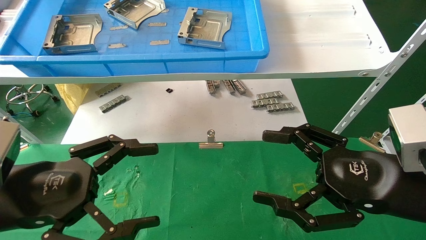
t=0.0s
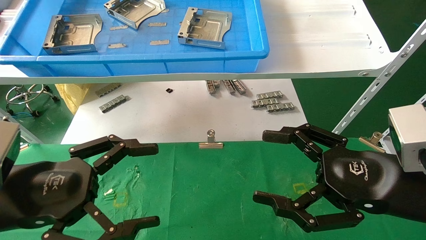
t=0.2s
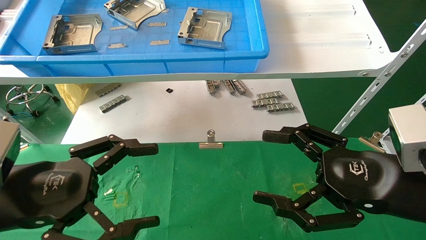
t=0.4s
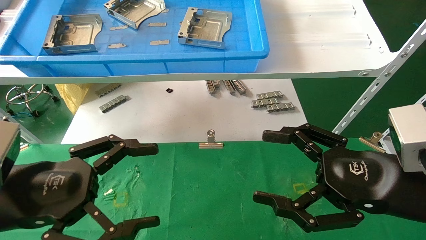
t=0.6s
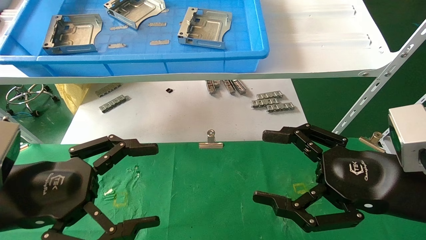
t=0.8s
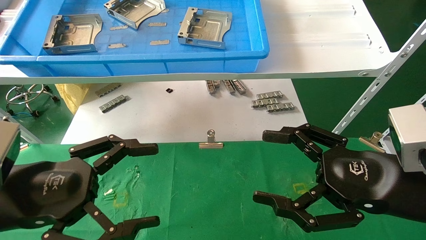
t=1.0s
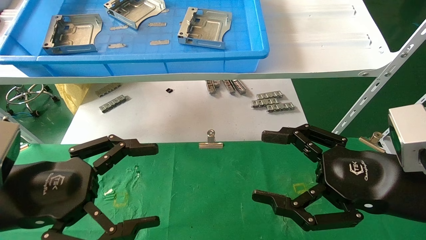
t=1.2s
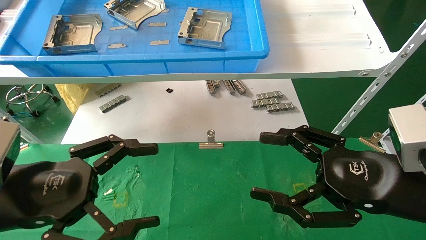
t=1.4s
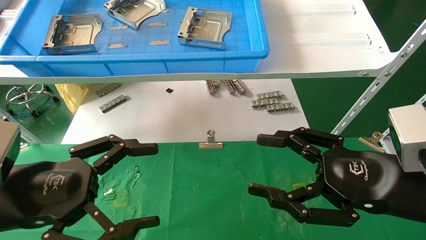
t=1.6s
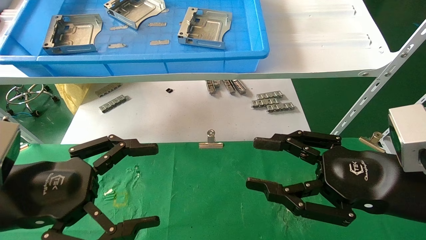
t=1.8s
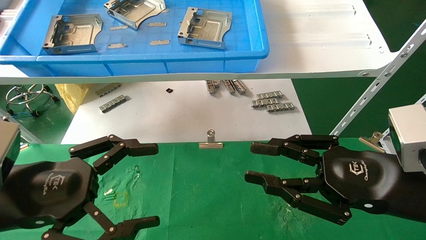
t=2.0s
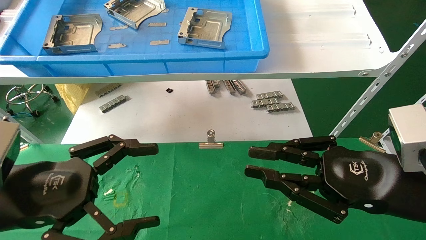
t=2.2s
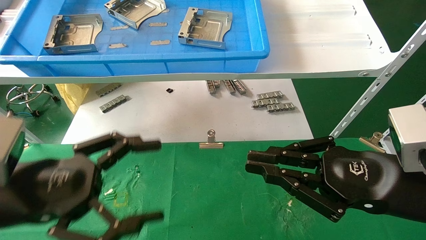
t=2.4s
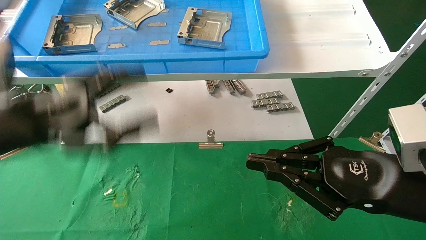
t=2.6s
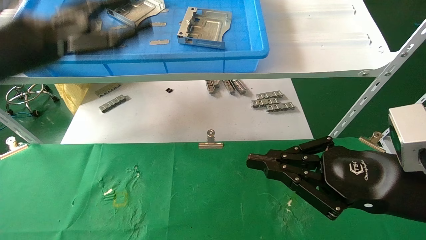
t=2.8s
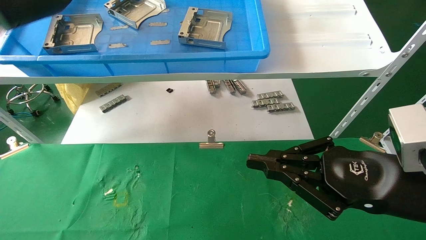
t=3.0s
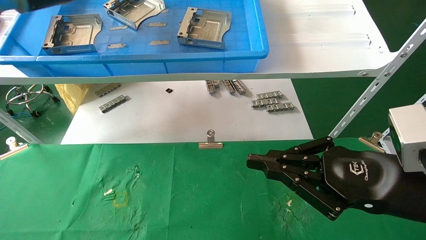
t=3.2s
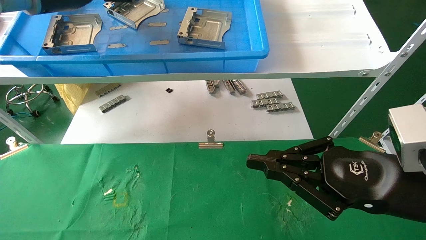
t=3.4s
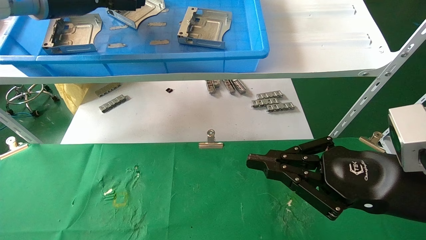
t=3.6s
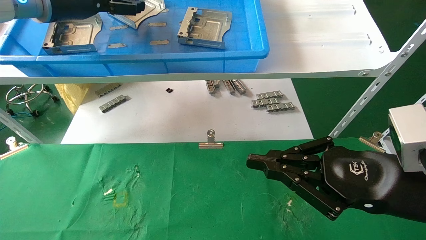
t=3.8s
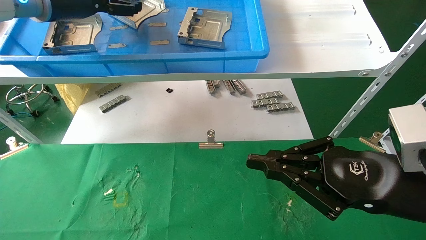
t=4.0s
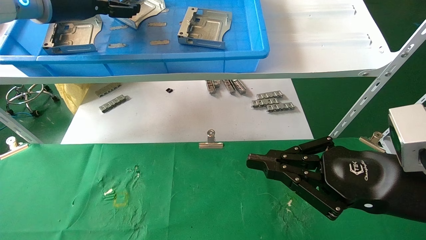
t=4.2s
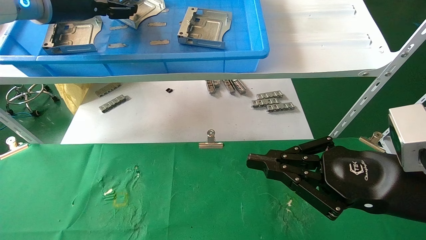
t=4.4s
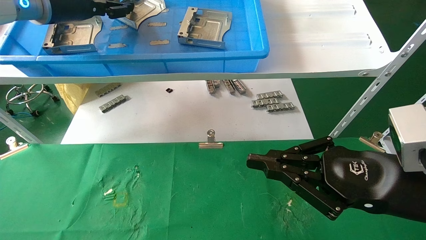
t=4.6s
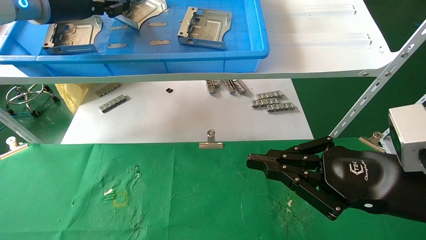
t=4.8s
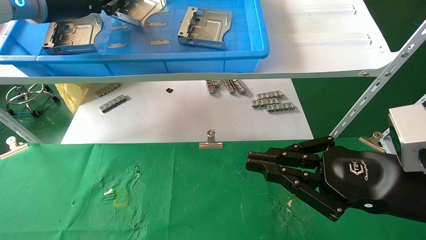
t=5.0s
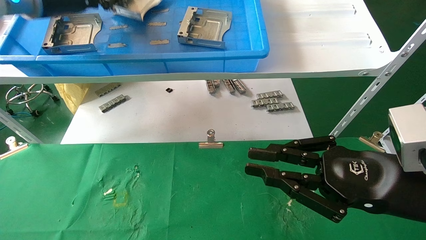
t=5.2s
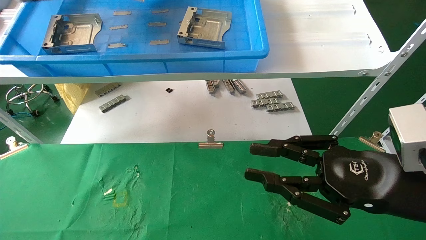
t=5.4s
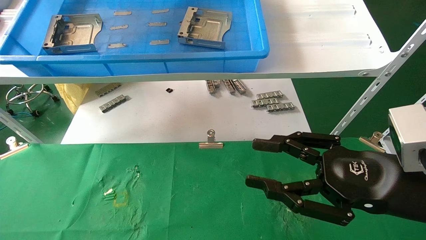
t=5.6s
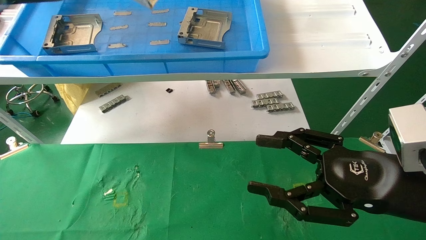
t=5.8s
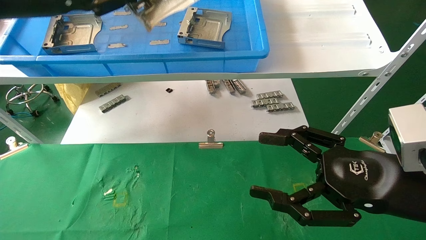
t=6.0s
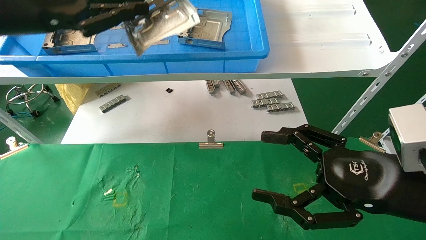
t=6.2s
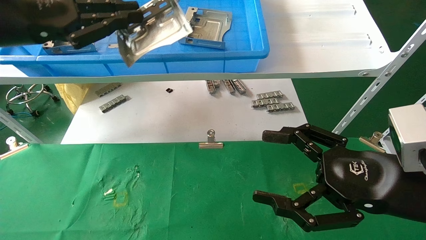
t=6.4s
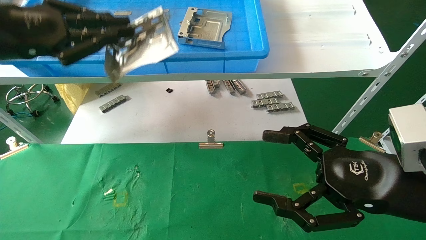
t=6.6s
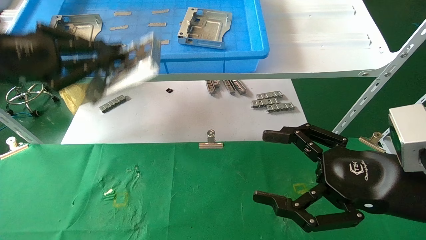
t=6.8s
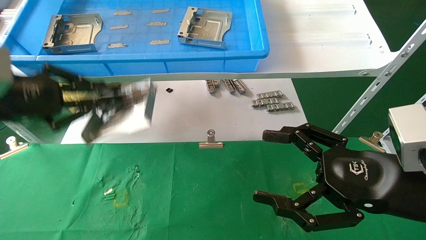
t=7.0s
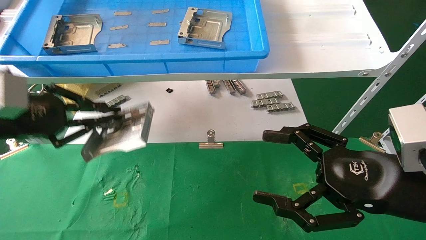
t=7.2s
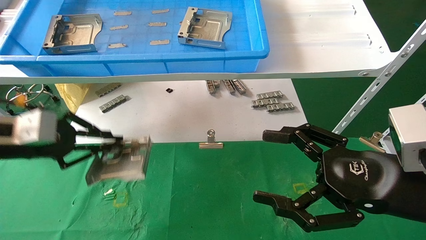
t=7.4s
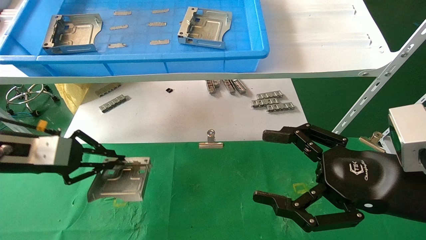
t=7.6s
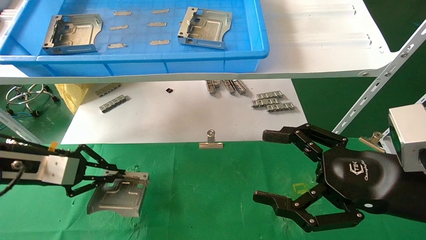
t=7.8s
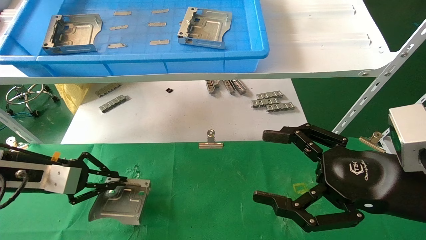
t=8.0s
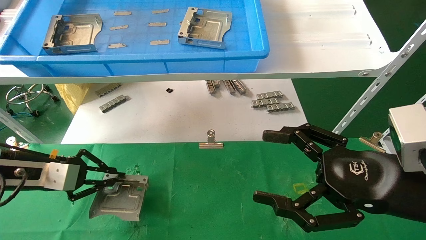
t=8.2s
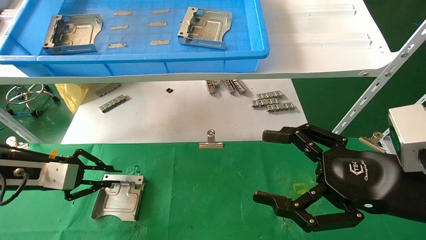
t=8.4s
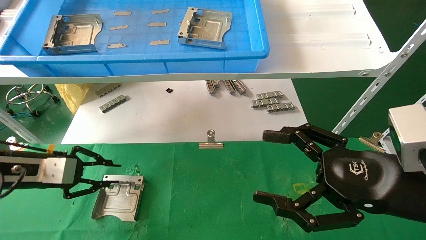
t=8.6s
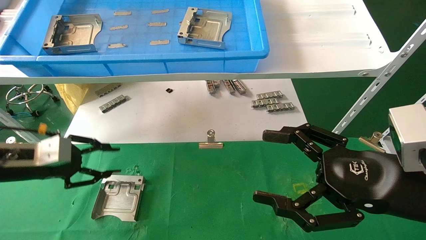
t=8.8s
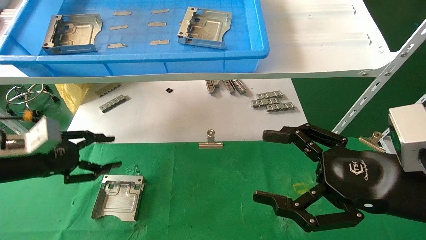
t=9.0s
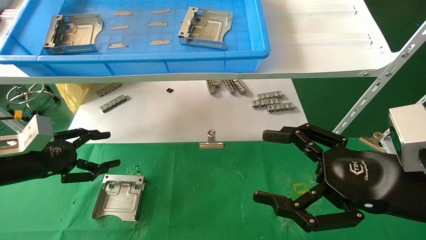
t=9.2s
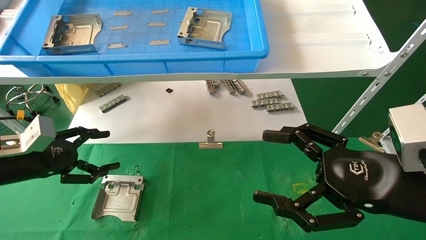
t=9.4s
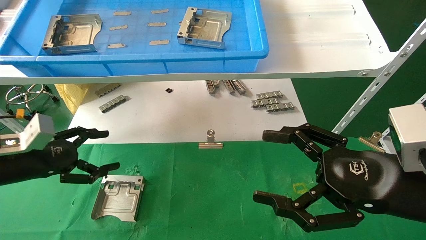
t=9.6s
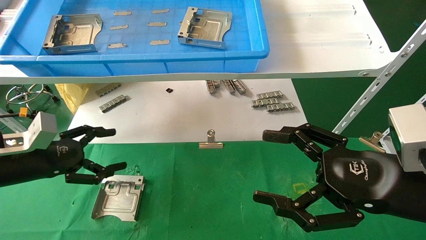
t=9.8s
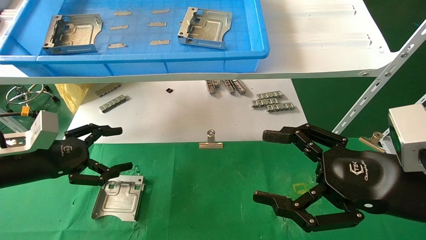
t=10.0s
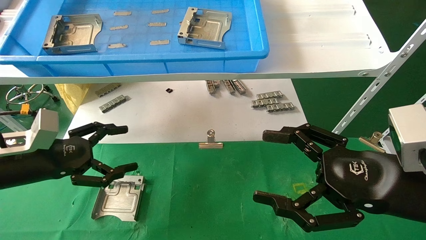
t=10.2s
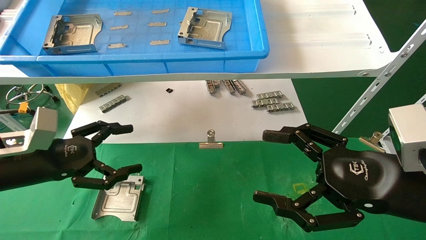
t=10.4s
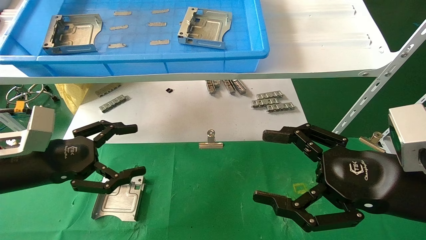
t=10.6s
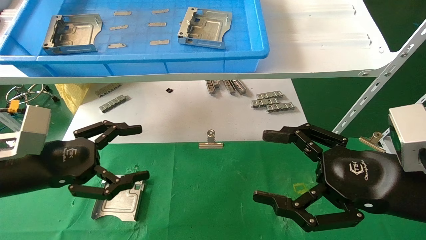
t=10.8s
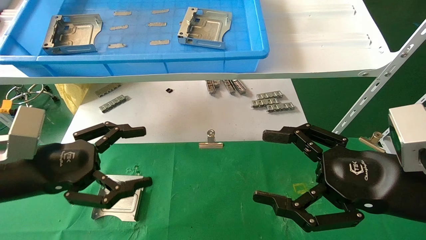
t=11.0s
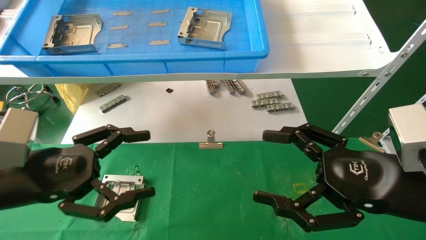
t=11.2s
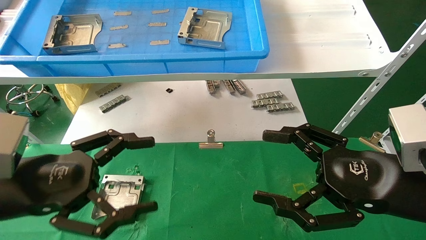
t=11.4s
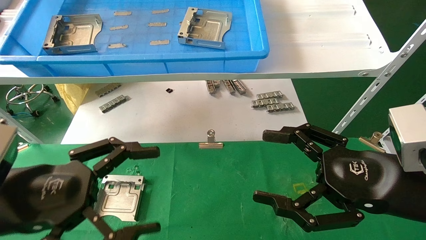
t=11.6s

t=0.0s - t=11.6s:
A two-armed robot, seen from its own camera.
Task of the whole recording: use the mechanical arm to pick up the parts and place them on the table.
Step, t=2.6s - t=5.0s: Pick up the hard drive bracket from the feeding area.
Step, t=5.2s - t=8.6s: Place the hard drive bracket into the box.
t=0.0s - t=1.4s: Neither gripper changes place.
t=1.4s - t=2.8s: The left gripper shifts roughly 20 cm upward and forward, while the right gripper closes up.
t=2.8s - t=4.4s: The left gripper is displaced forward and upward by approximately 15 cm.
t=4.4s - t=5.8s: The right gripper opens its fingers, while the left gripper goes about 5 cm backward, and closes.
t=5.8s - t=7.2s: The right gripper opens up. Meanwhile the left gripper heads downward and to the left, covering approximately 20 cm.
t=7.2s - t=8.8s: The left gripper moves downward, roughly 10 cm.
t=8.8s - t=10.2s: The left gripper opens up.
t=10.2s - t=11.6s: The left gripper is displaced backward and to the right by about 15 cm.

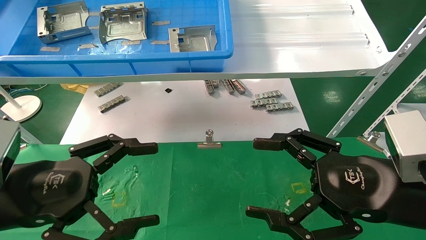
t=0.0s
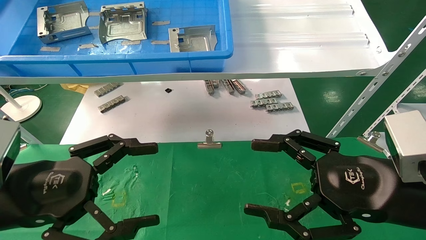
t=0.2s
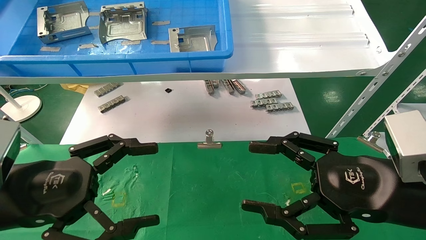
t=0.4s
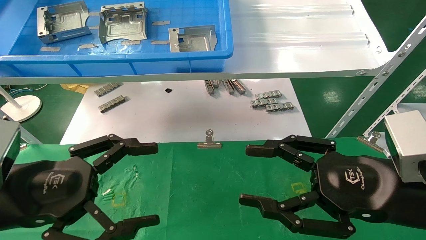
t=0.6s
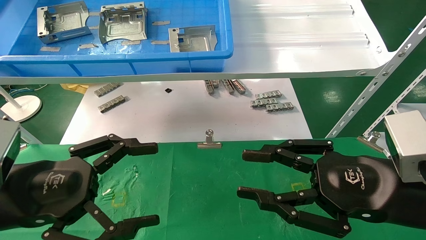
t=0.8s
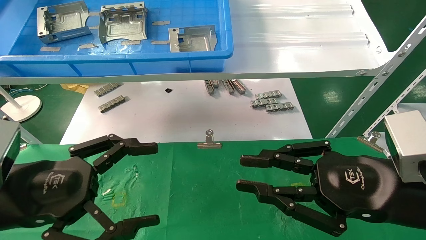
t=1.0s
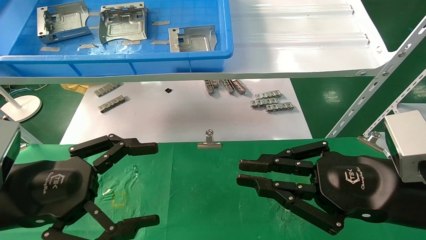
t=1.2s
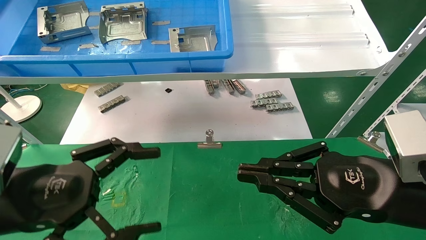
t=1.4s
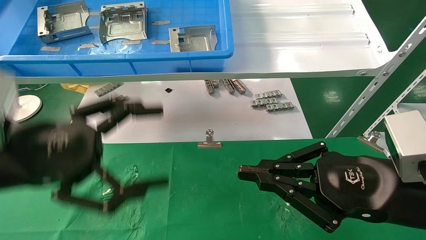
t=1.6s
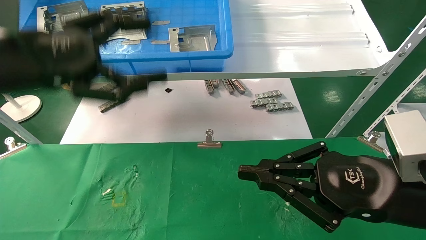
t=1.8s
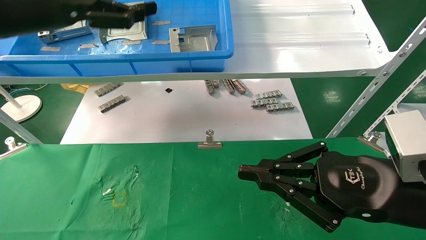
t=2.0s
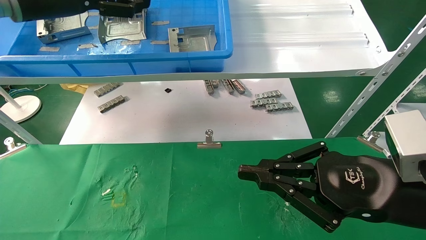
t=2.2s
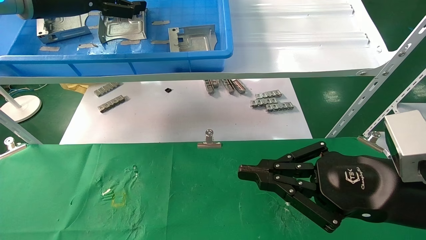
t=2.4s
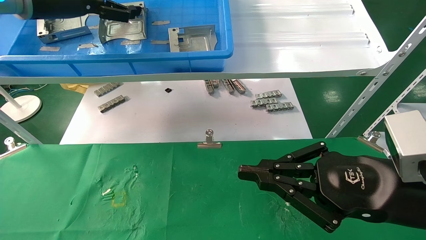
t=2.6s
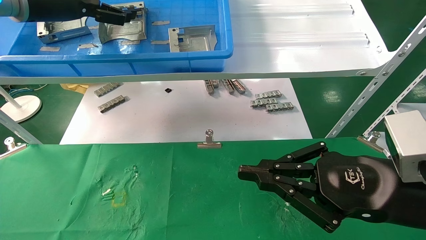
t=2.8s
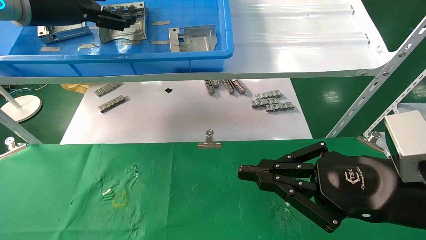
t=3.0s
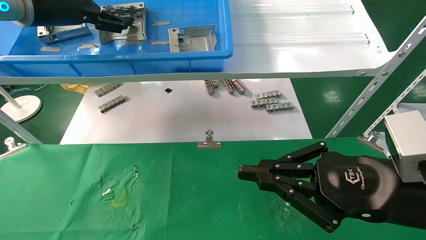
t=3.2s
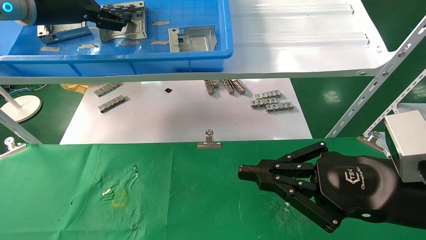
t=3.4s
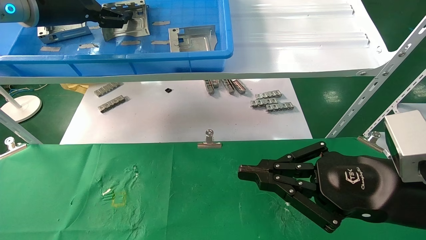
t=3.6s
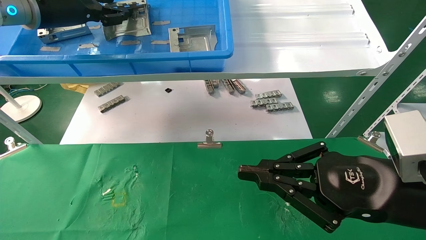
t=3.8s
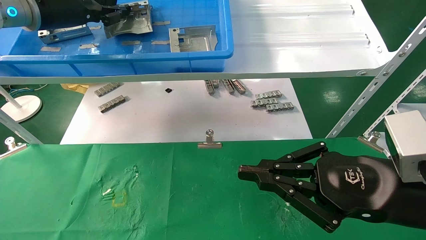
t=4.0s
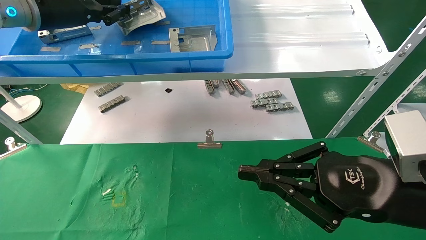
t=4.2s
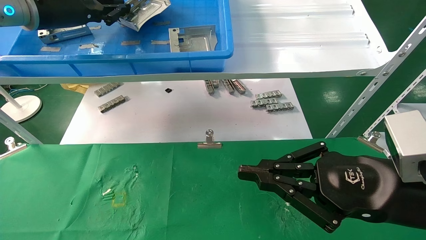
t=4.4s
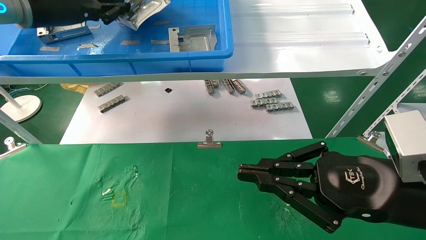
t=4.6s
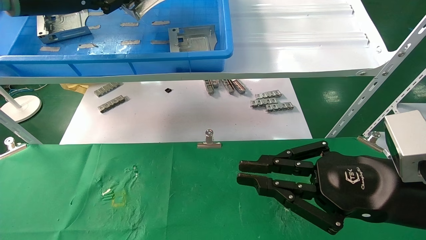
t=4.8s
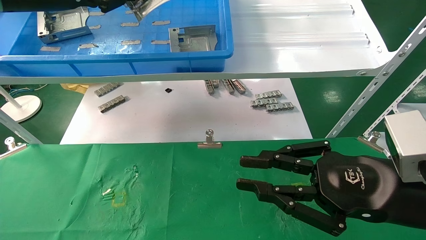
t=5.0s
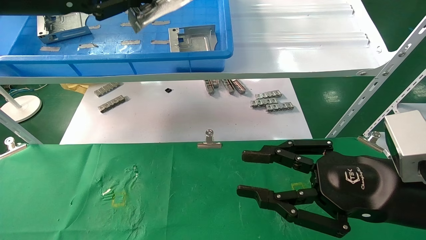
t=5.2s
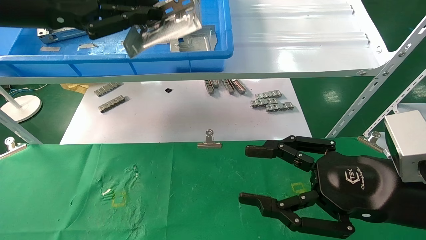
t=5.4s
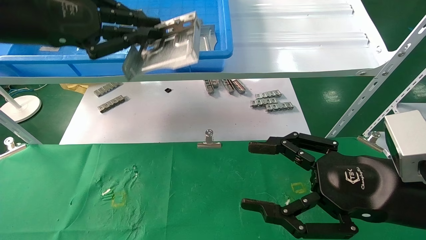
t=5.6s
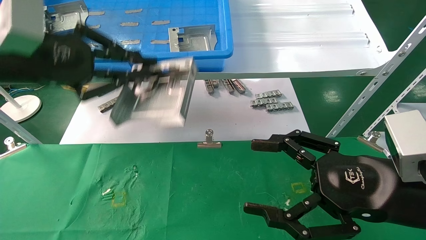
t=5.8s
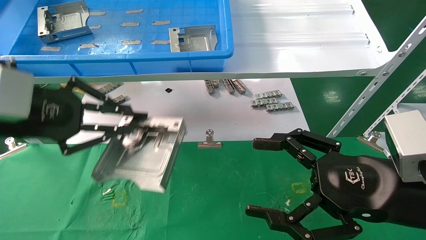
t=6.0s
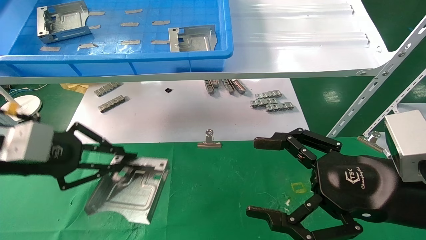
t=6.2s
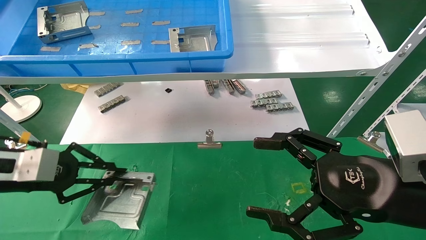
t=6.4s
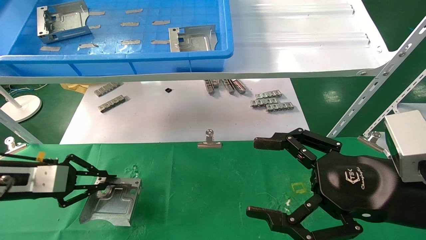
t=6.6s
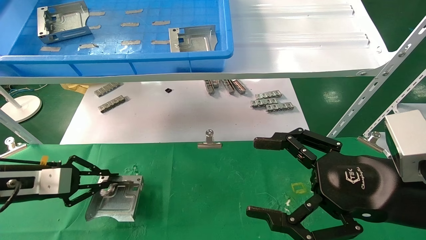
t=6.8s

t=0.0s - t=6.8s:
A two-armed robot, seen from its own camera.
Task of the whole recording: use the mechanical arm to pick up the parts and place them on the table.
Step, t=1.8s - t=4.2s: Pick up the hard drive bracket from the feeding area.
t=0.0s - t=1.4s: The right gripper closes.
t=1.4s - t=2.8s: The left gripper goes roughly 30 cm upward and forward.
t=2.8s - t=4.0s: The left gripper closes its fingers.
t=4.0s - t=5.4s: The right gripper opens. The left gripper goes some 10 cm backward, and closes its fingers.
t=5.4s - t=6.8s: The left gripper is displaced downward by approximately 30 cm, while the right gripper opens up.
